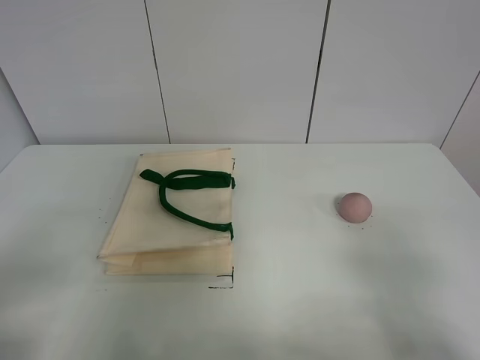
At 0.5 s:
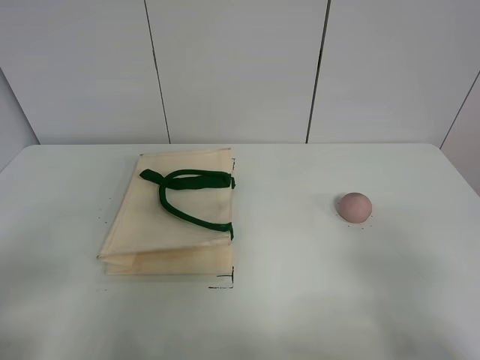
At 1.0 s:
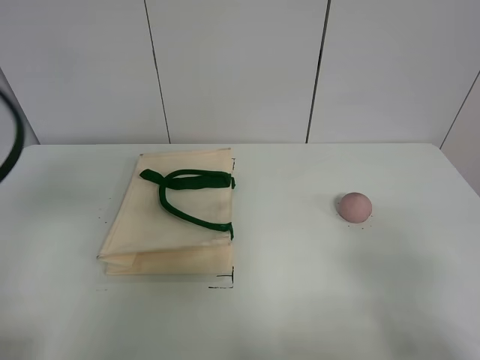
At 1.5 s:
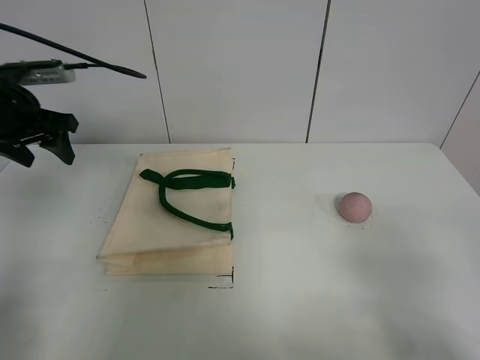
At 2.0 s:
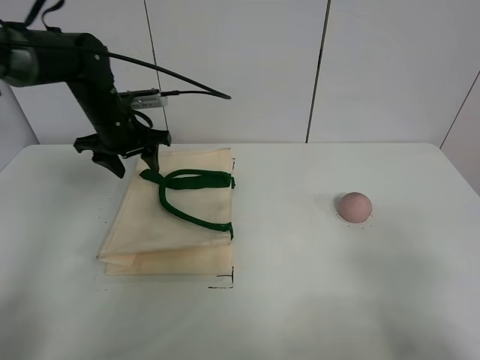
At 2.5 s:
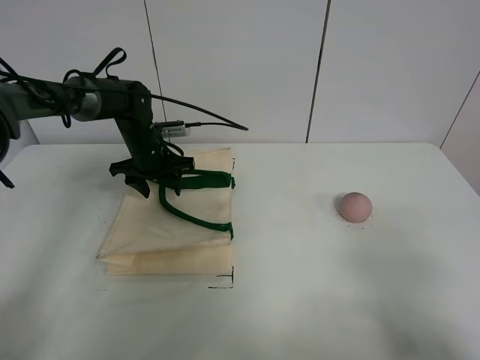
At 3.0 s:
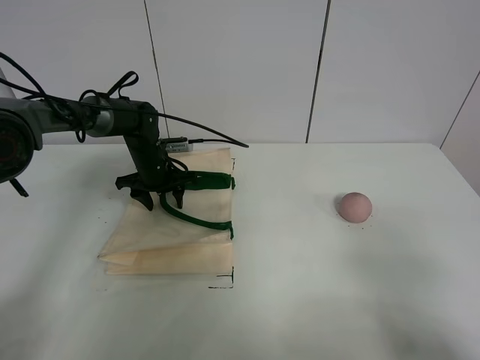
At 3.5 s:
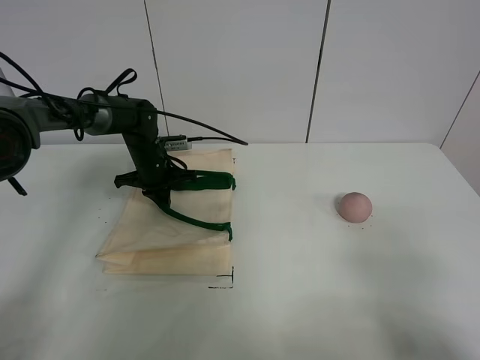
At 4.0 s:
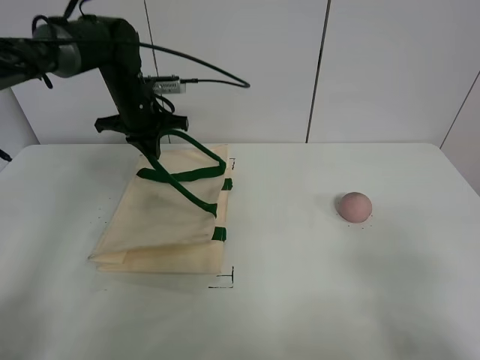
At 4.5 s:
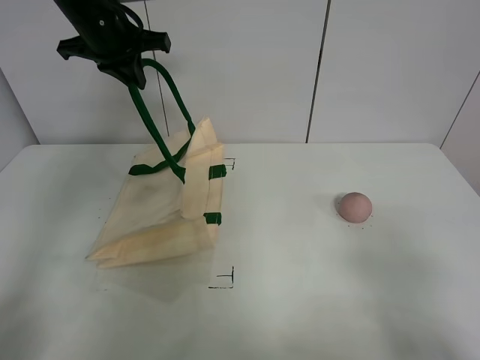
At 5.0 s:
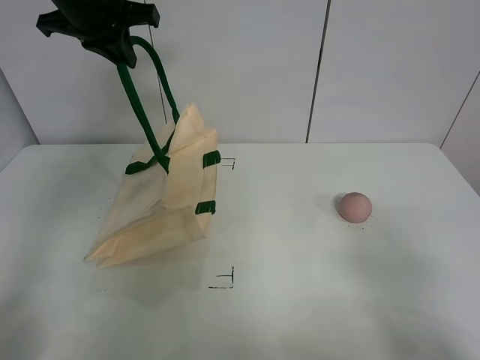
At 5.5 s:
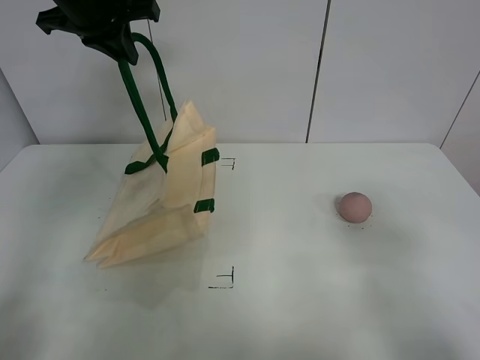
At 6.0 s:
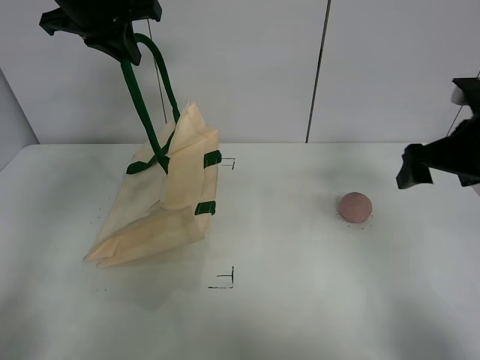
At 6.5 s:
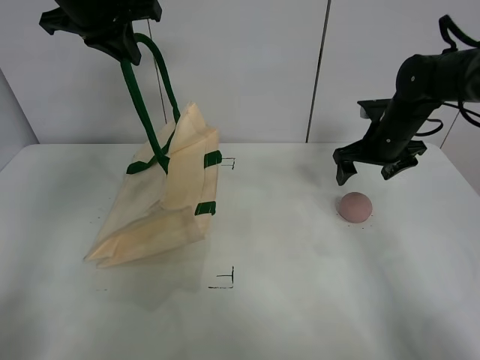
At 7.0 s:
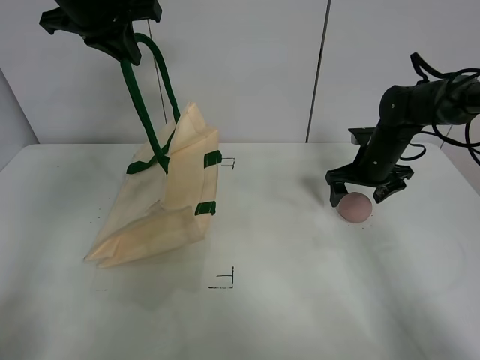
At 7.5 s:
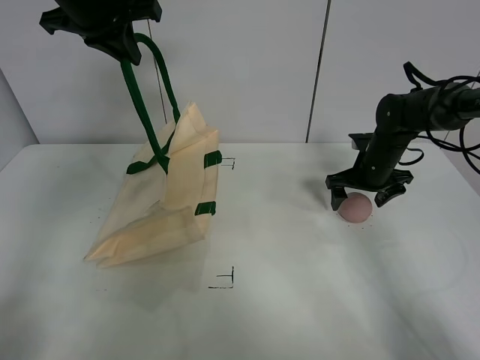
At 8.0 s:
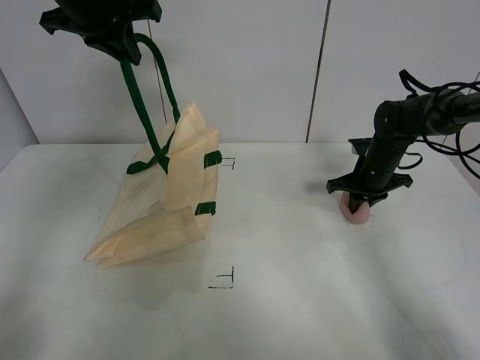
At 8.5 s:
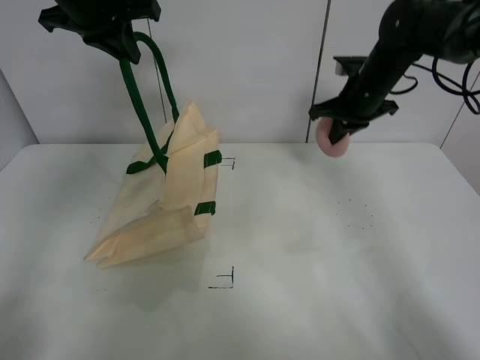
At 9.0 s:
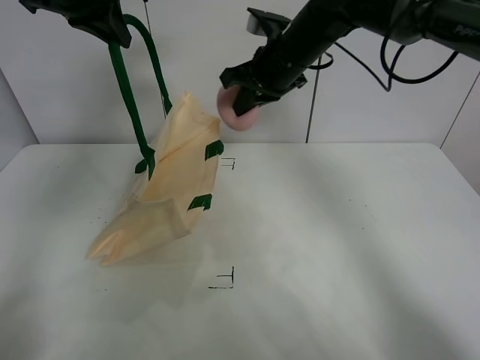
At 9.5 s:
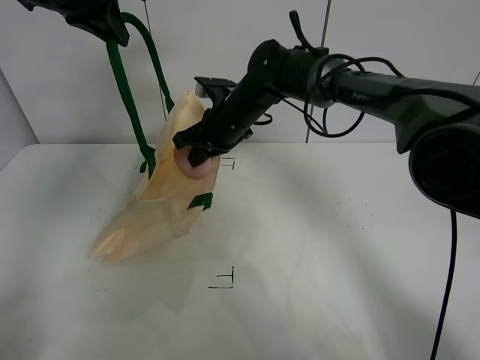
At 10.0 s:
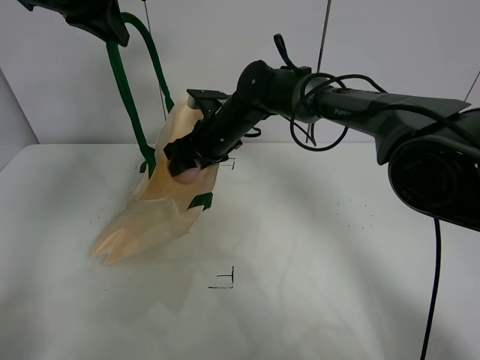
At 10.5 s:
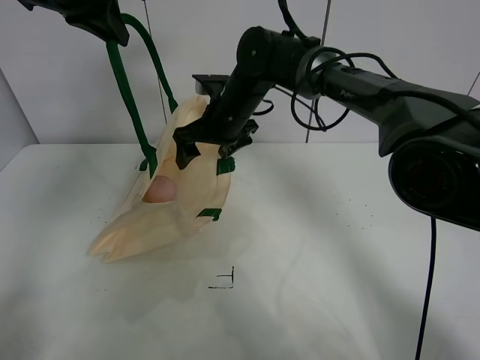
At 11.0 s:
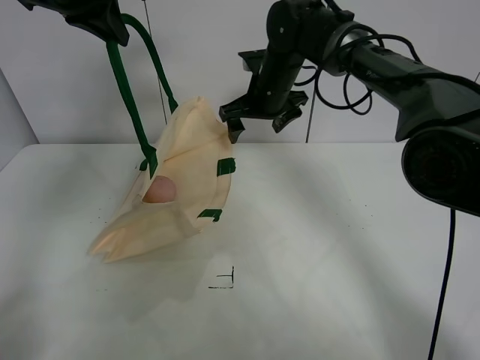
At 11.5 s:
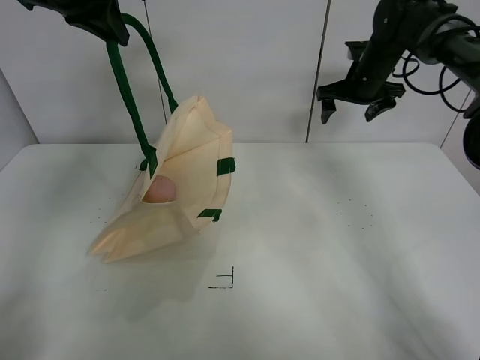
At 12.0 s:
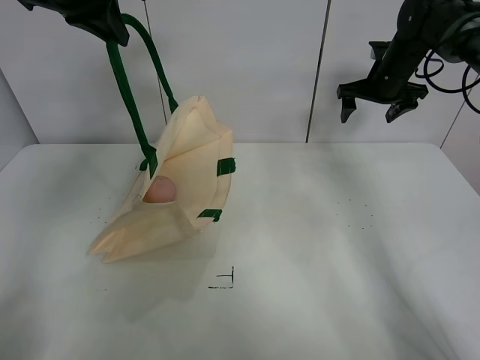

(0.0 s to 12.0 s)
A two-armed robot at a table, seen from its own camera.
Task of the whole recording: open the white linen bag and put the peach in the bag.
Step, 0.0 s - 5.0 s: Lift the handbag with left gripper.
Step, 5.5 s - 8.0 s: Grasp the peach with right gripper.
Step, 8.5 s - 10.0 s: Place the peach in the handbag with right gripper.
0.0 s - 2.0 s: The left gripper travels forward by approximately 40 cm.
2.0 s - 4.0 s: The left gripper goes downward and returns, roughly 10 cm each way, and closes.
4.0 s - 6.0 s: The left gripper moves upward and backward, about 15 cm. Meanwhile the right gripper goes about 30 cm forward.
6.0 s - 8.0 s: The right gripper heads downward and forward, covering roughly 20 cm, and closes.
8.0 s - 10.0 s: The right gripper heads to the left, covering roughly 25 cm, and opens its fingers.
10.0 s - 12.0 s: The right gripper goes approximately 30 cm to the right.

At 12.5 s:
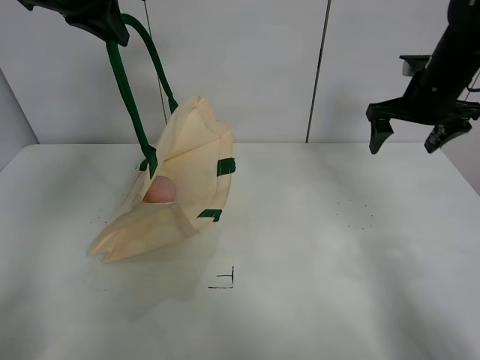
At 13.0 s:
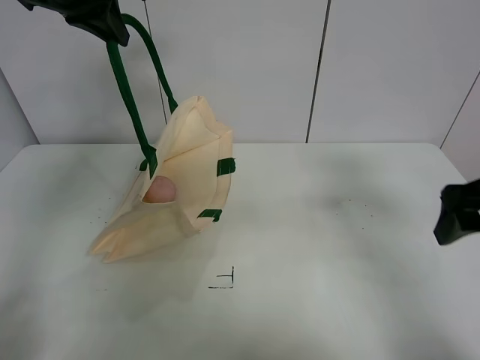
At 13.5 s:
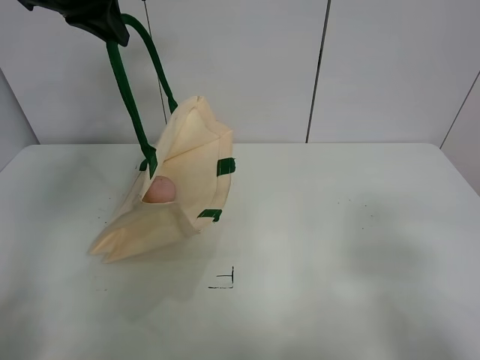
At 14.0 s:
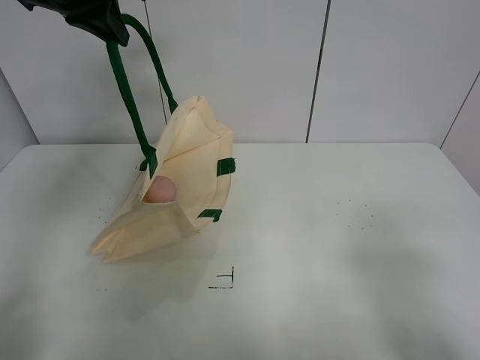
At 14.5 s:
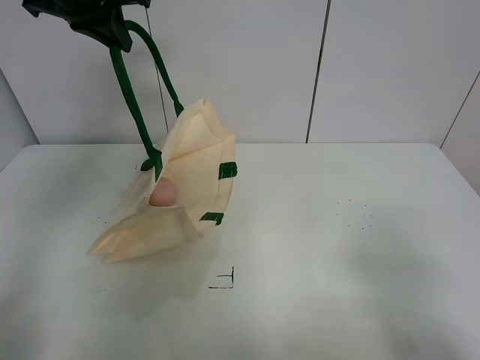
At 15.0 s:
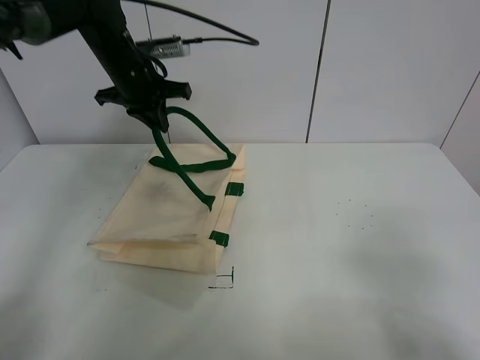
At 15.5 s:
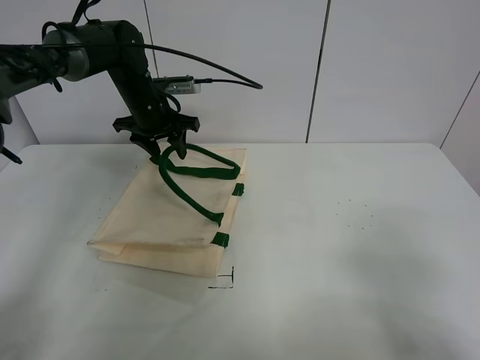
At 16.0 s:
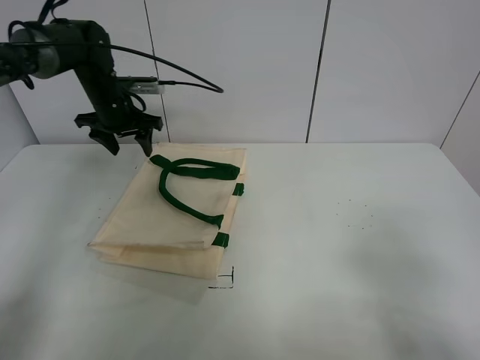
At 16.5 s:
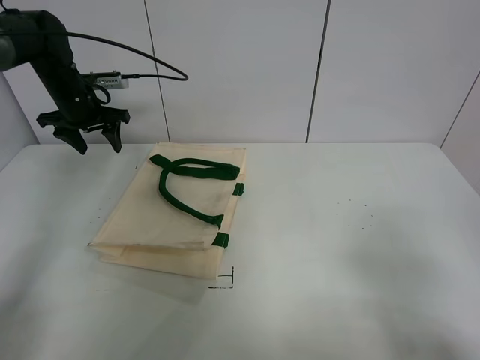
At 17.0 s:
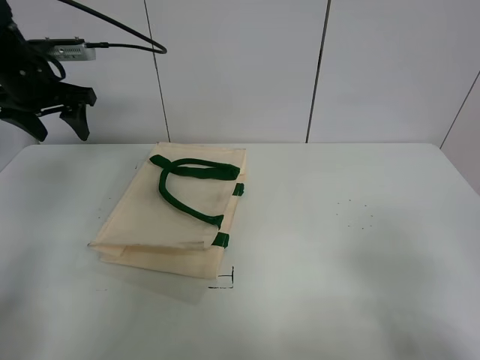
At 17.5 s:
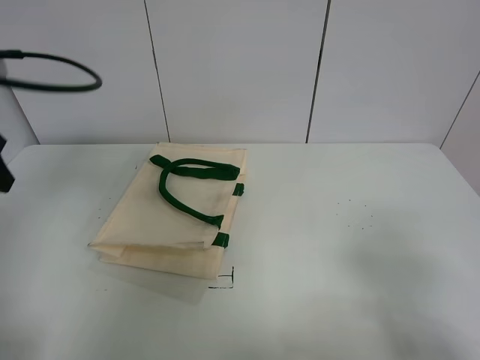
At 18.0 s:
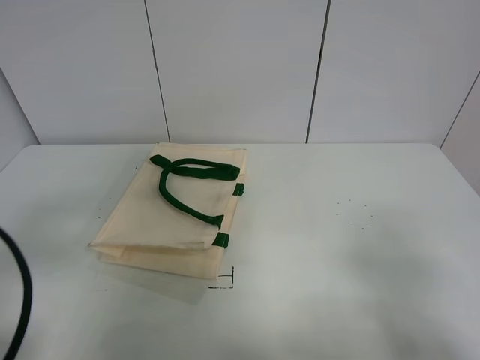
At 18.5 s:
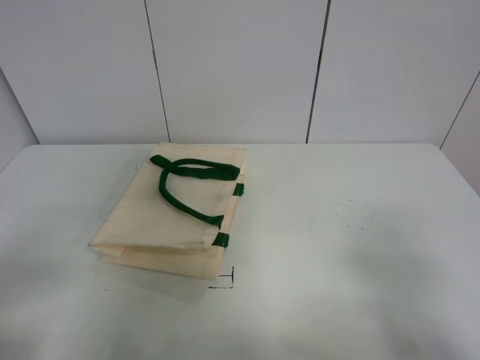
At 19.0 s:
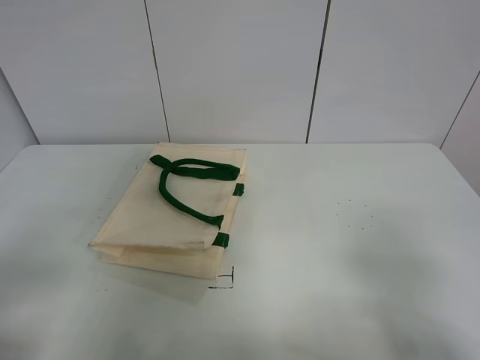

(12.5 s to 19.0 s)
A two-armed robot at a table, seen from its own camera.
Task of the whole recording: open the white linen bag and put the peach in the bag.
Step, 12.5 s - 15.5 s: Put down the handbag with left gripper.
12.5 s - 14.5 s: The right gripper moves backward, approximately 40 cm.
14.5 s - 17.0 s: The left gripper moves to the left and downward, roughly 15 cm, and opens.
17.0 s - 19.0 s: The left gripper travels backward by some 40 cm.

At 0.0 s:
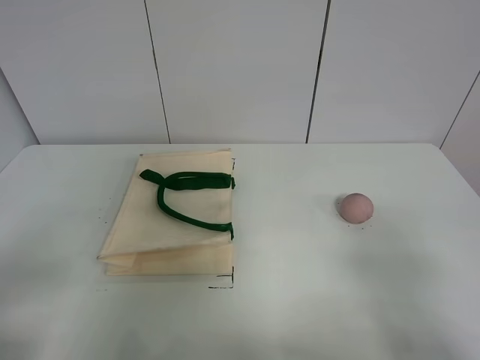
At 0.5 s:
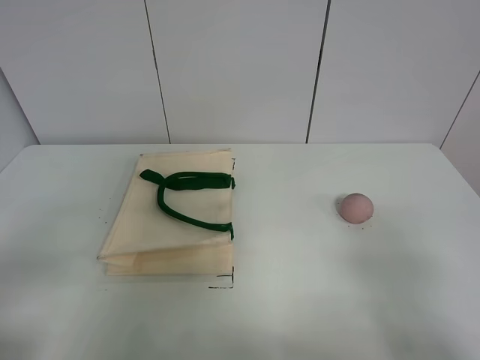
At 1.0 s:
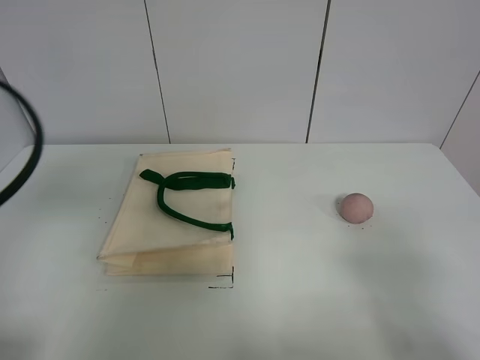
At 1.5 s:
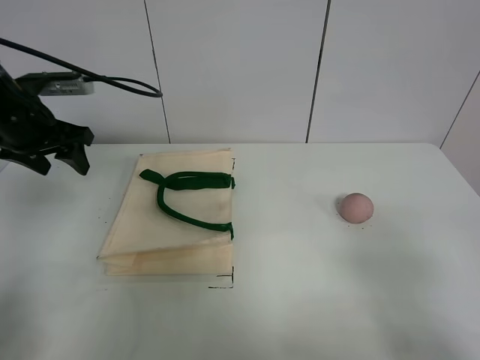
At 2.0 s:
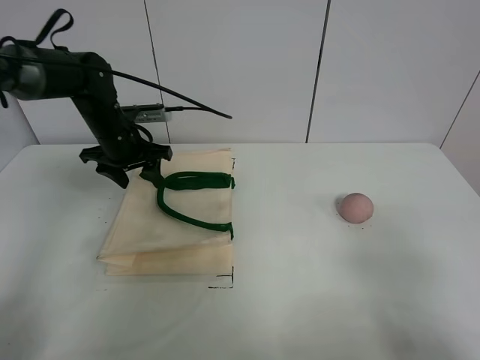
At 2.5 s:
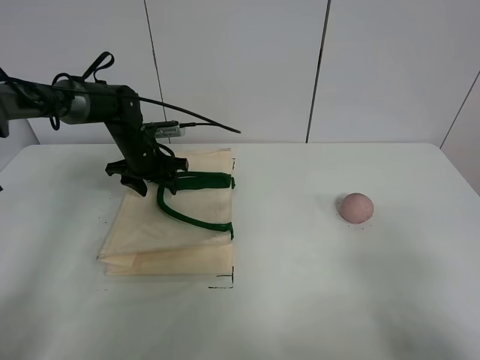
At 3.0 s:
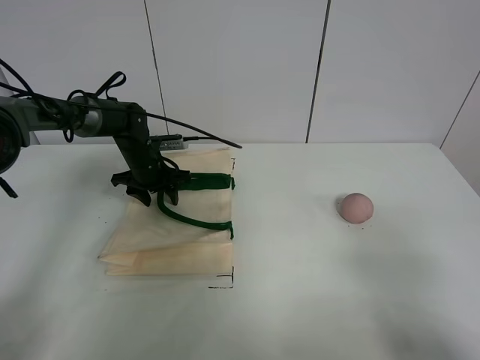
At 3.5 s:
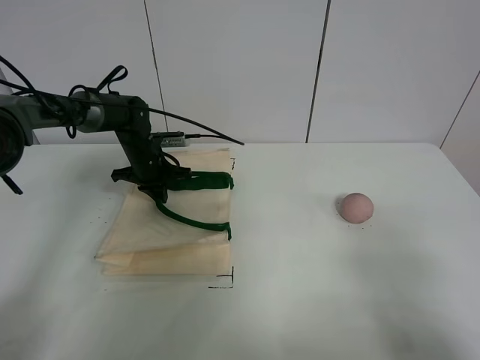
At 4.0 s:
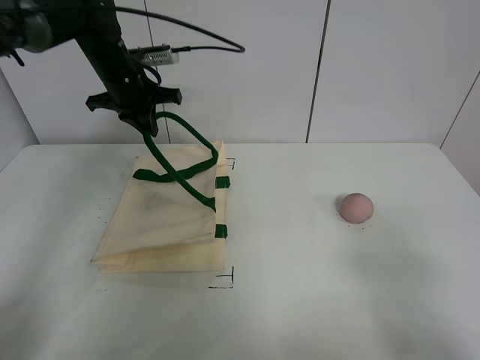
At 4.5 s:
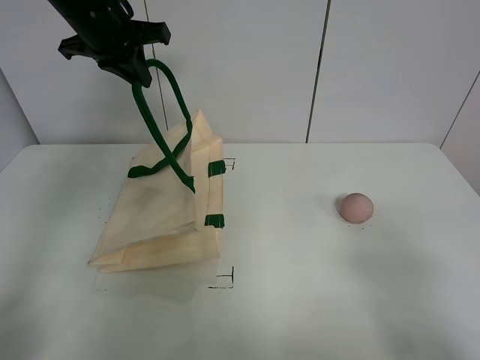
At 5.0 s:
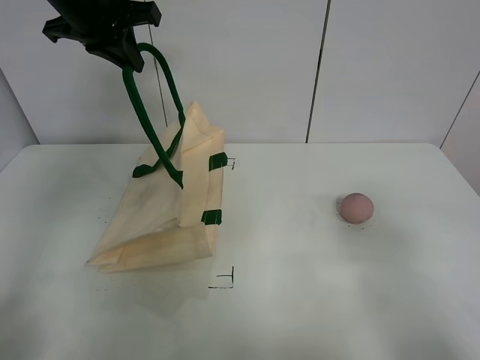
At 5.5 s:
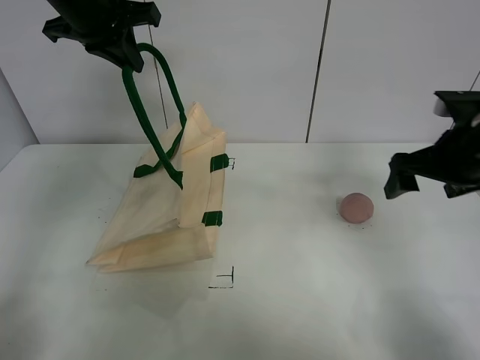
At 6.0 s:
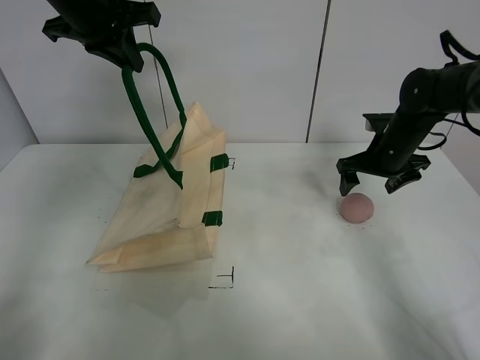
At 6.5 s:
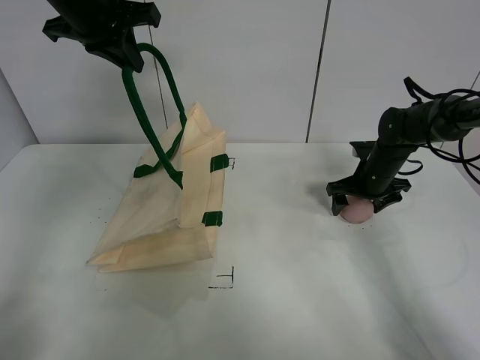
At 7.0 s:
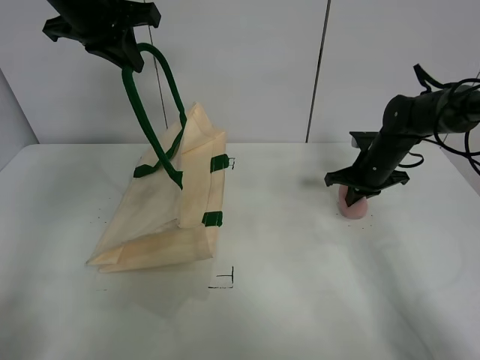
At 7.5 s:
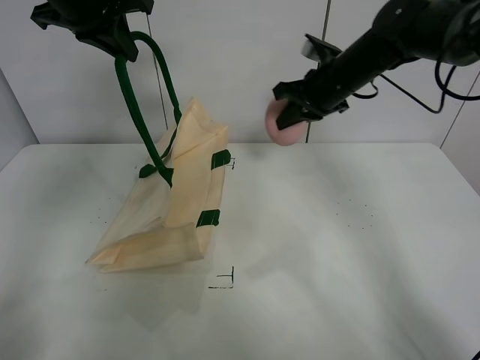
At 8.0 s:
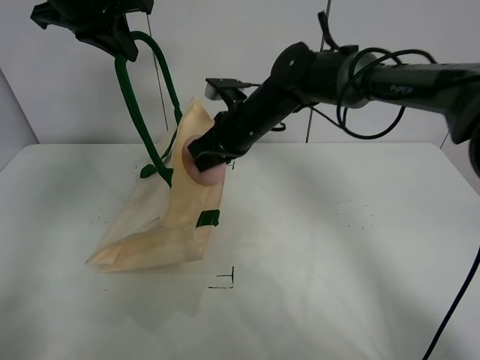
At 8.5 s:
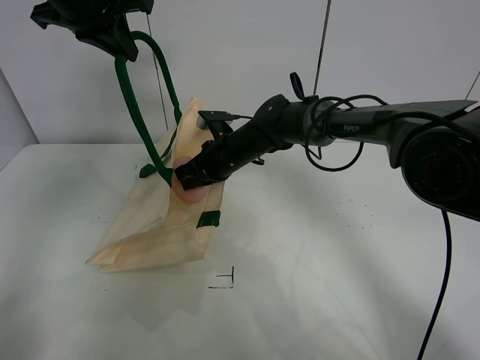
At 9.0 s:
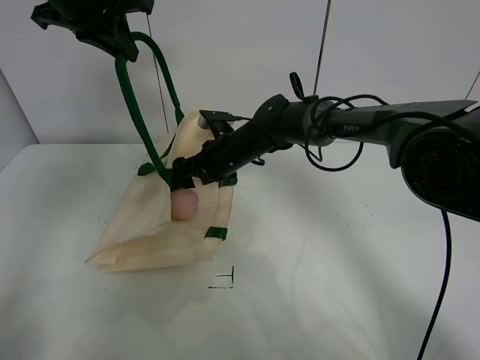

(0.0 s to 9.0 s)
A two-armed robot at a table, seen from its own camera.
Task of the whole recording: open the white linen bag and put the peach in the bag.
Step, 0.0 s - 4.5 s: Lift the handbag with left gripper.
Step, 5.0 s - 6.5 s: Grasp the peach with right gripper.
Step, 7.0 s - 8.5 s: Place the peach in the handbag with right gripper.
2.0 s - 4.5 s: The left gripper travels upward by some 15 cm, and closes its fingers.
4.5 s - 7.0 s: The right gripper is displaced forward by about 40 cm, and closes up.
7.0 s - 9.0 s: The right gripper heads to the left, covering some 25 cm, and opens up.
